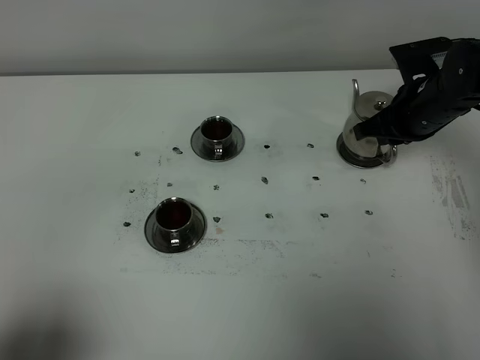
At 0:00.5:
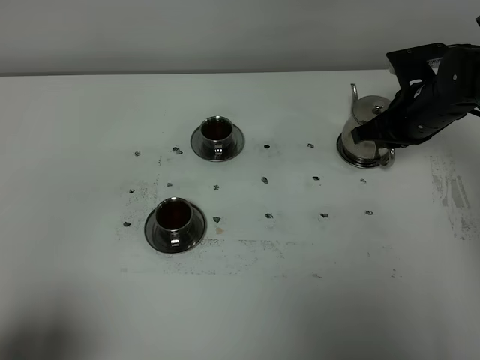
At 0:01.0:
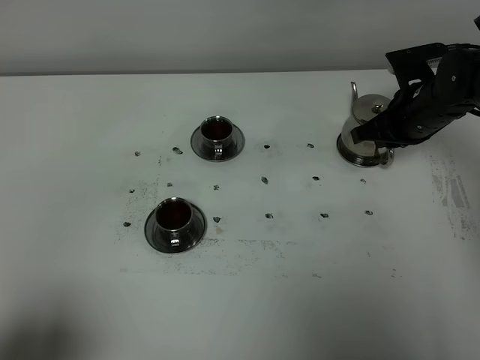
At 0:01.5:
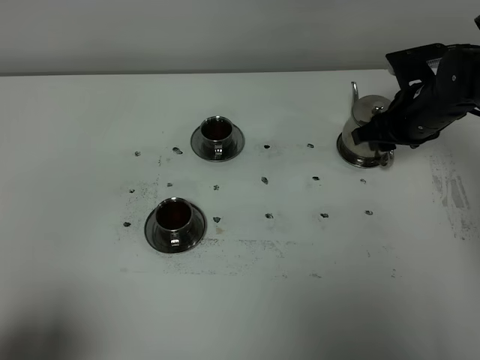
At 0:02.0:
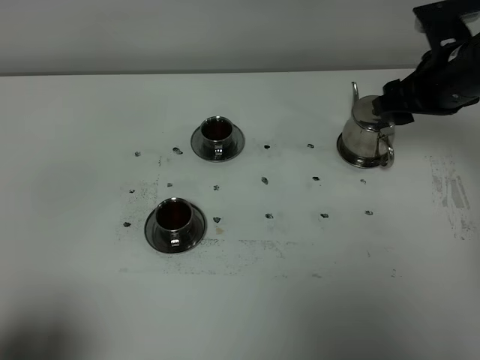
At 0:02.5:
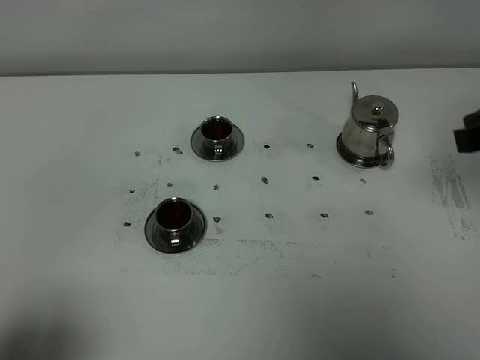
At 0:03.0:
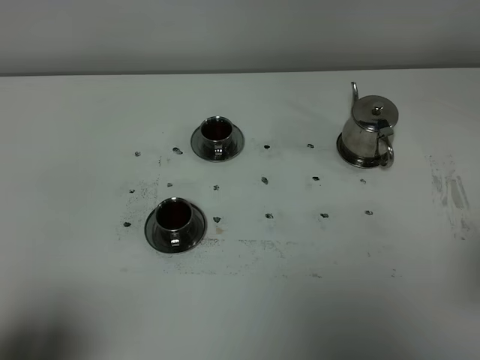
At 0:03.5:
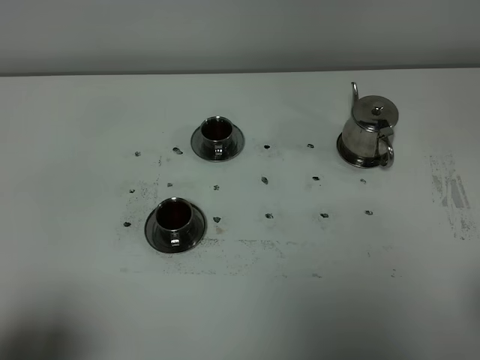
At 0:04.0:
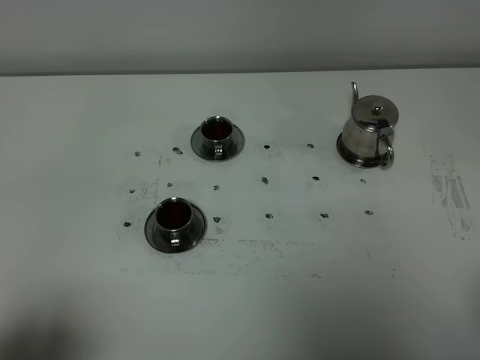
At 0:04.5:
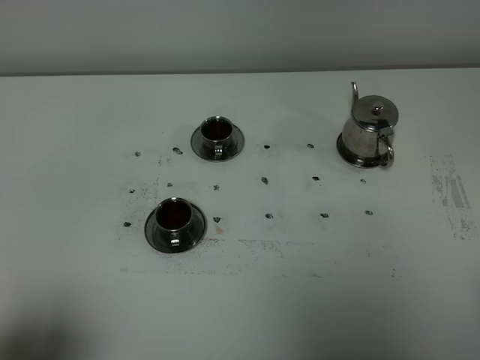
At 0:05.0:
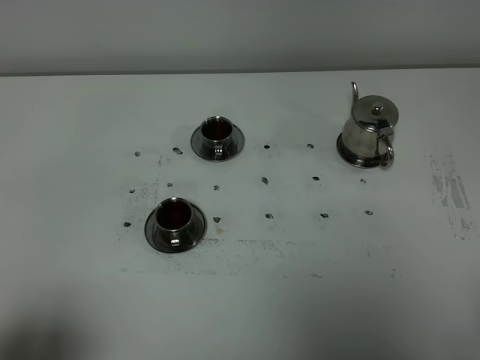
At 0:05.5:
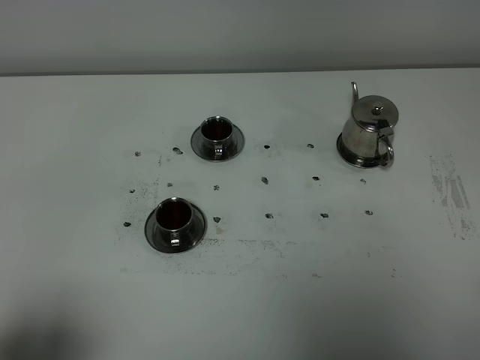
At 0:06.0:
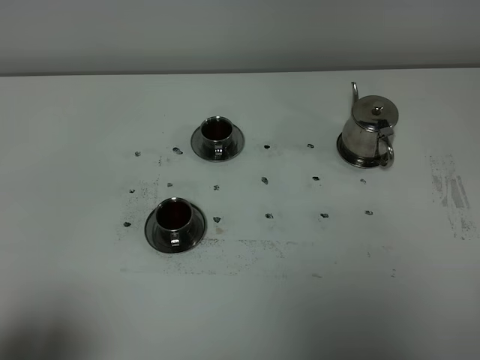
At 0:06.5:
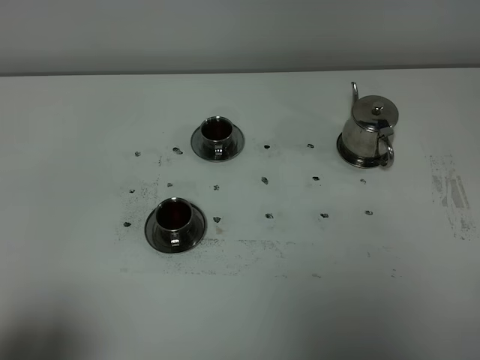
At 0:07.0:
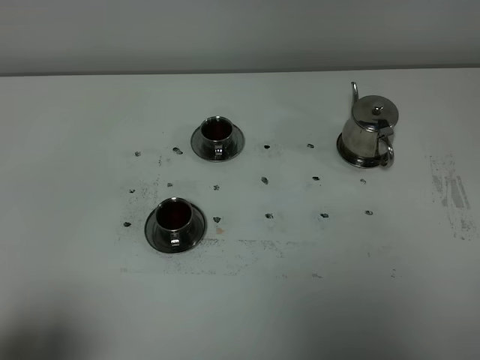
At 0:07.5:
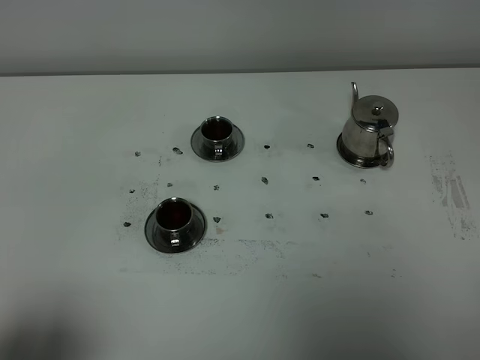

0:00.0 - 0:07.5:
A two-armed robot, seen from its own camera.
Task of the whole recording: grasp the stainless steel teapot and pour the tea into the two stainless steel teacups one by one, put the stainless steel teapot back in its original place.
0:00.0 - 0:02.0: The right gripper travels upward by approximately 10 cm, and opens.
0:02.0 - 0:04.0: The right gripper shifts some 35 cm backward, and closes its fingers.
0:05.5 - 0:07.5: Both grippers stay put.

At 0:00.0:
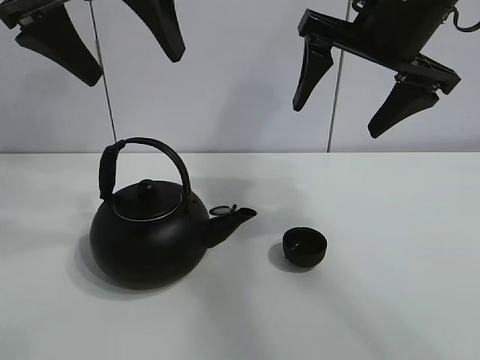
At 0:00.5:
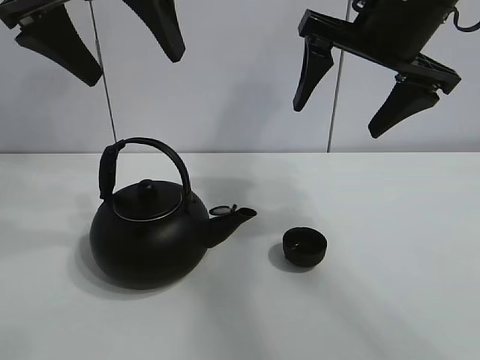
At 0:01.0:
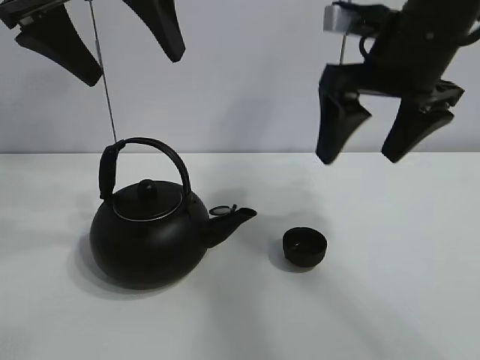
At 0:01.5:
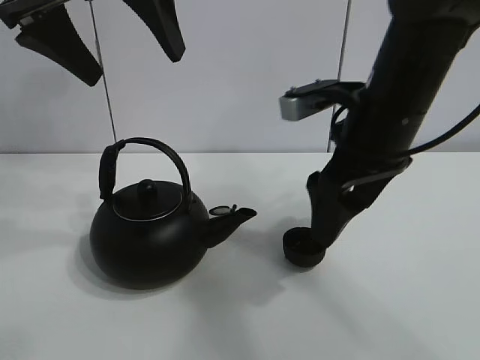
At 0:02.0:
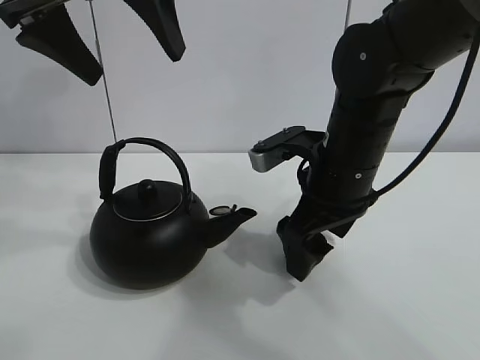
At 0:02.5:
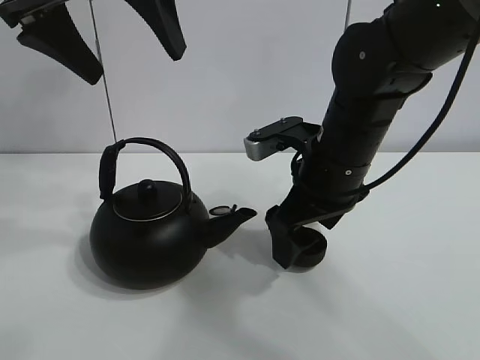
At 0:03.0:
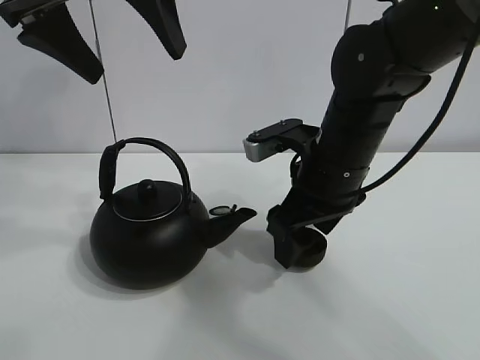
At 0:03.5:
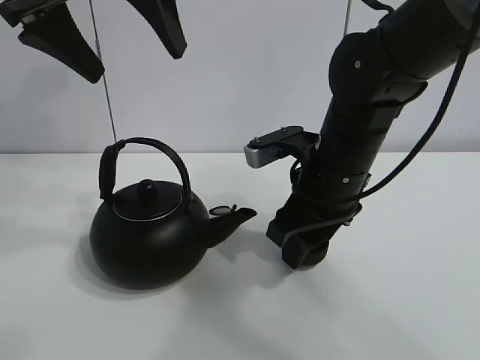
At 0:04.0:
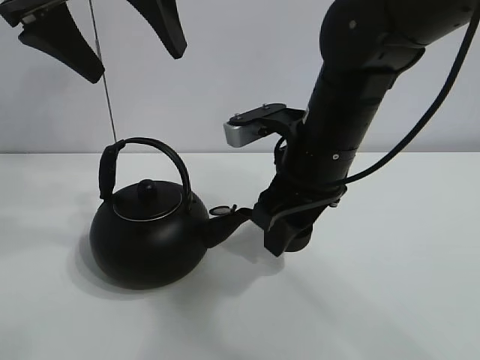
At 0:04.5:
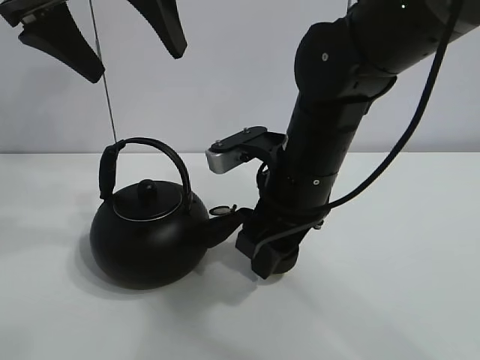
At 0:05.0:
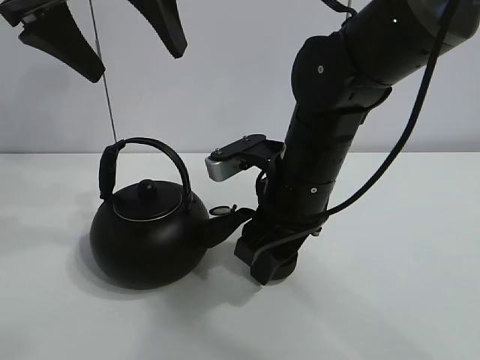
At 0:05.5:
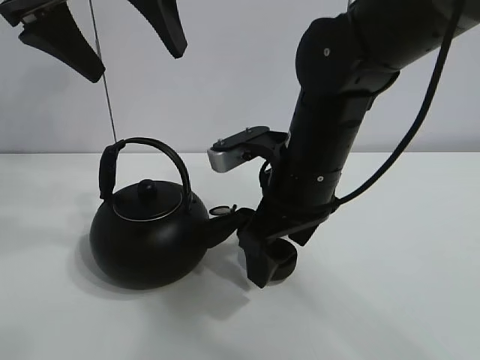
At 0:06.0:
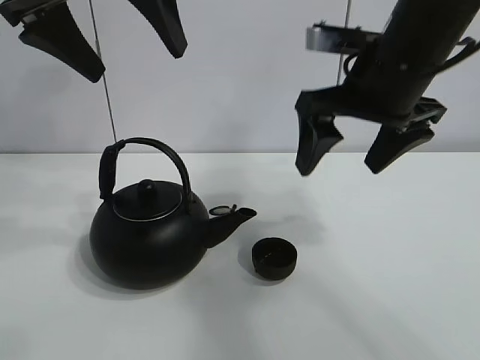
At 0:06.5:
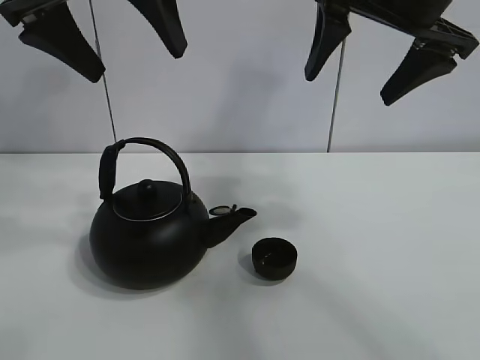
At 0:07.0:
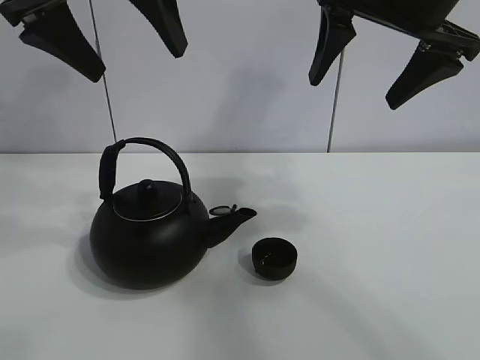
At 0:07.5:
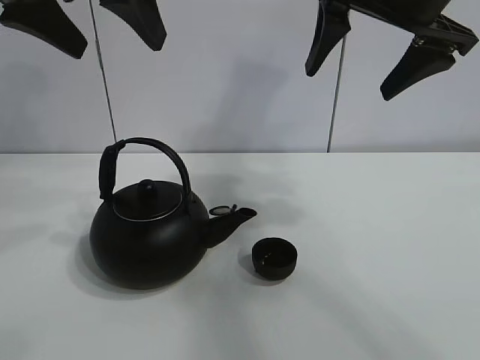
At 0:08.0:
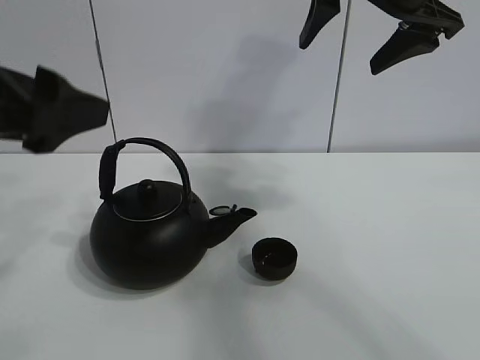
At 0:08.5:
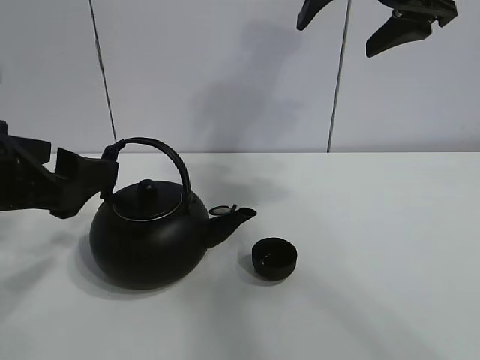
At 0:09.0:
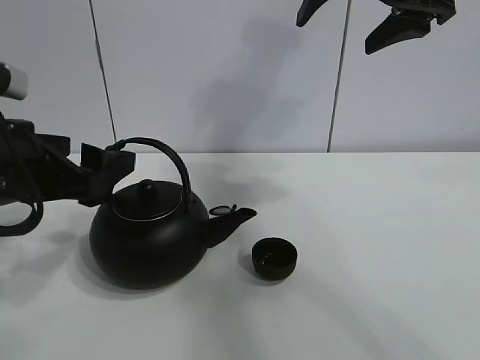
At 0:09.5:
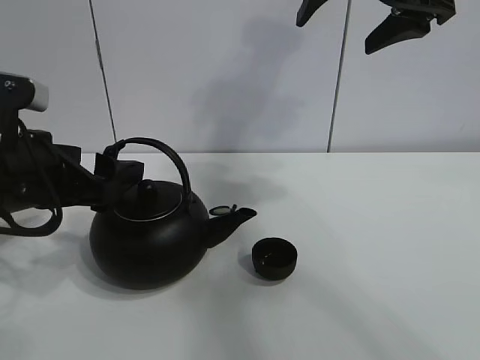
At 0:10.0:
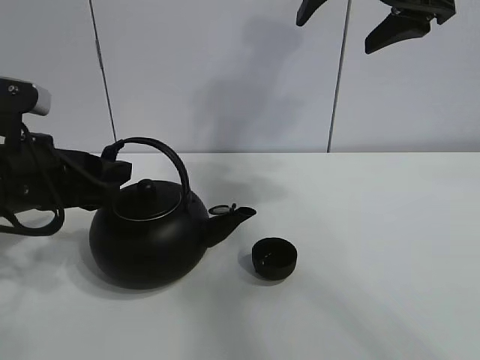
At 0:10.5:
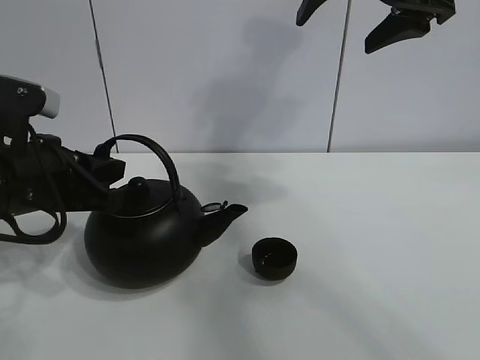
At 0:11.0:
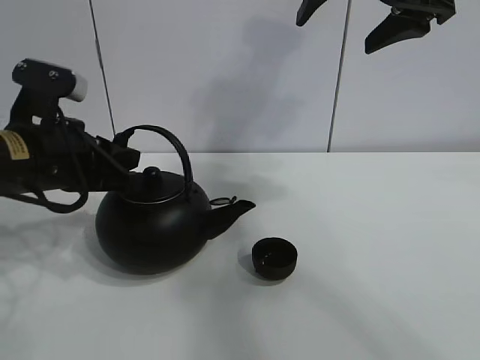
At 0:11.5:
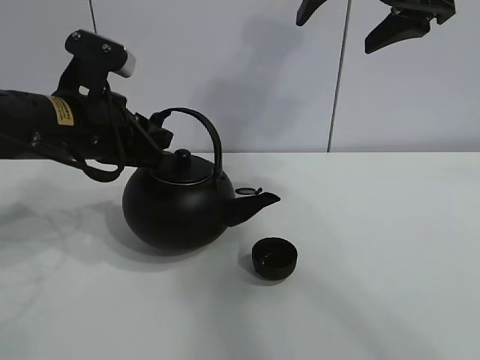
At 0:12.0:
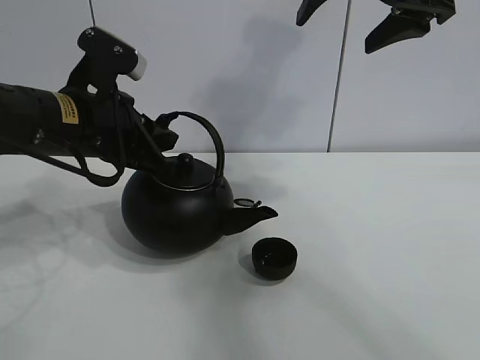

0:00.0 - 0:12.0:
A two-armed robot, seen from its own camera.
Task of the whole recording: pour tea into the teacup.
Step, 0:00.0 - 0:03.0: Pick up the teacup with the right gripper.
Step, 0:03.5 - 0:05.0: Place the teacup in the center of view with the right gripper.
Step, 0:05.5 - 0:10.0: Pick up the teapot with the left gripper.
0:02.0 - 0:04.0: The right gripper closes.
0:04.0 - 0:06.0: The right gripper heads upward and to the right, covering roughly 10 cm, and opens up.
0:06.0 - 0:08.0: The left gripper travels backward, downward and to the left by some 15 cm, while the right gripper shifts roughly 10 cm upward.
0:08.0 - 0:10.0: The left gripper is displaced downward and forward by about 15 cm.
0:10.0 - 0:12.0: The left gripper travels to the right and forward by approximately 10 cm, and closes its fingers.

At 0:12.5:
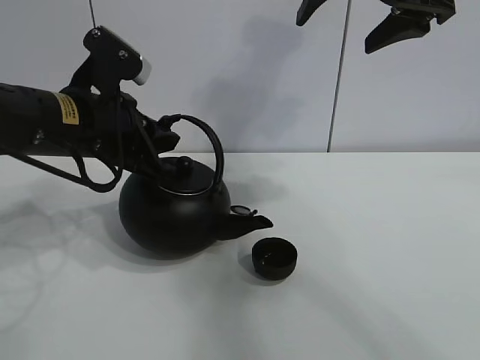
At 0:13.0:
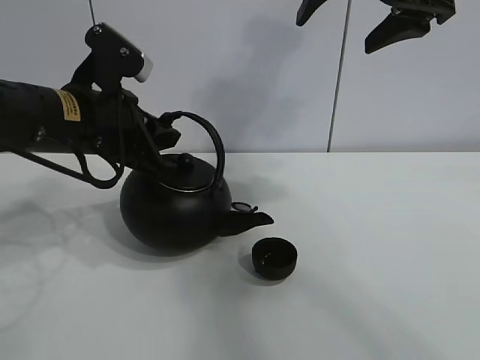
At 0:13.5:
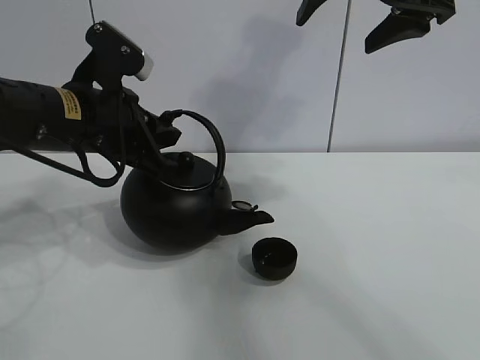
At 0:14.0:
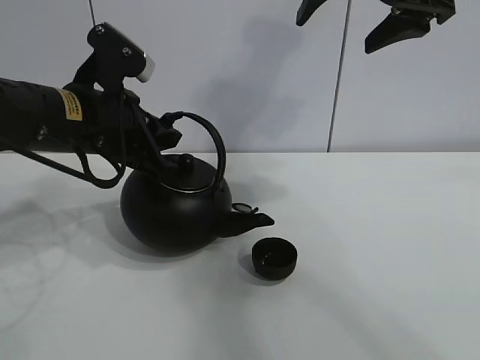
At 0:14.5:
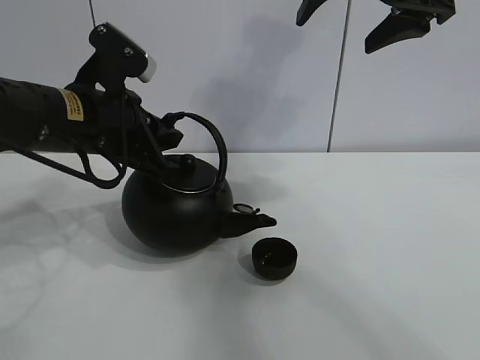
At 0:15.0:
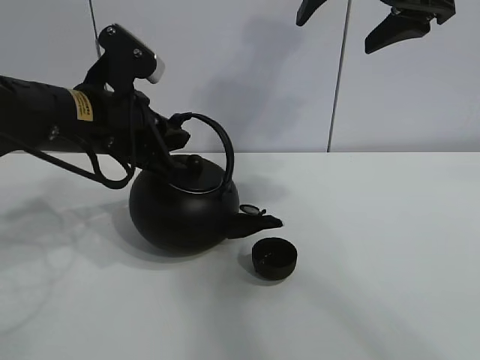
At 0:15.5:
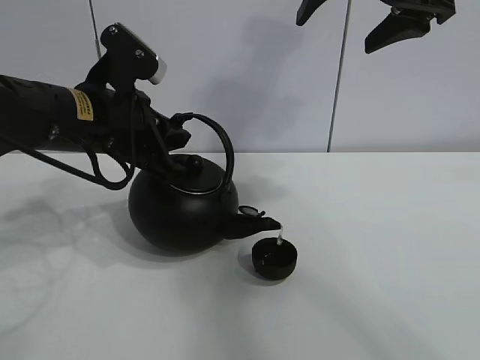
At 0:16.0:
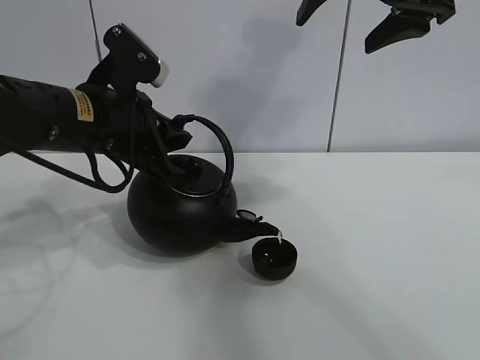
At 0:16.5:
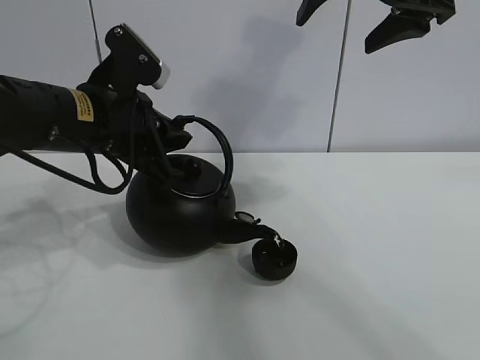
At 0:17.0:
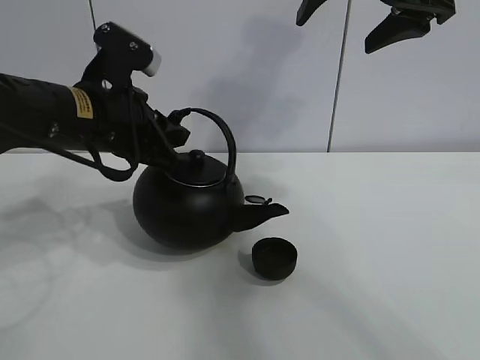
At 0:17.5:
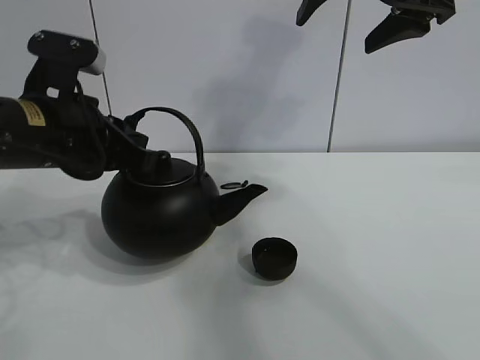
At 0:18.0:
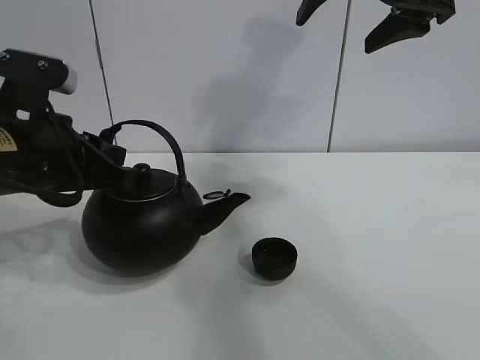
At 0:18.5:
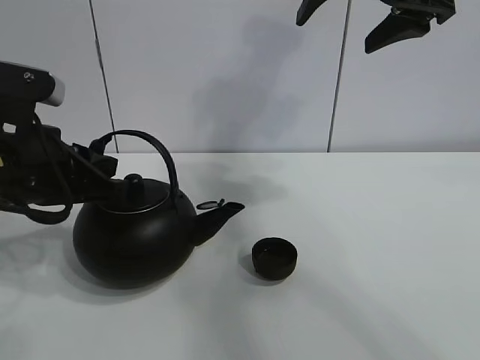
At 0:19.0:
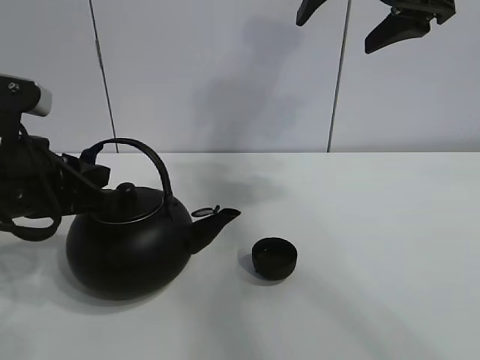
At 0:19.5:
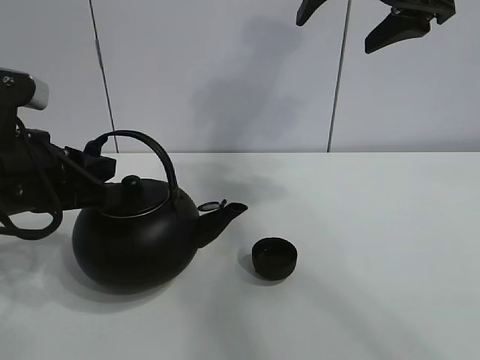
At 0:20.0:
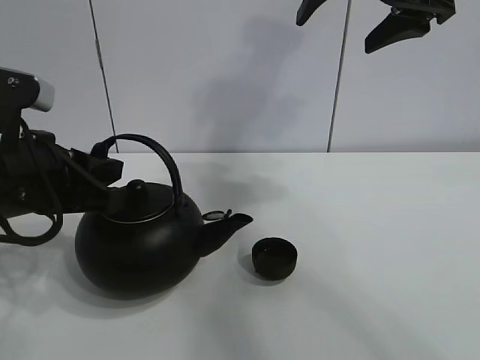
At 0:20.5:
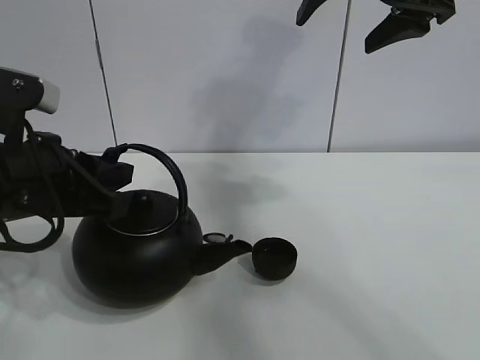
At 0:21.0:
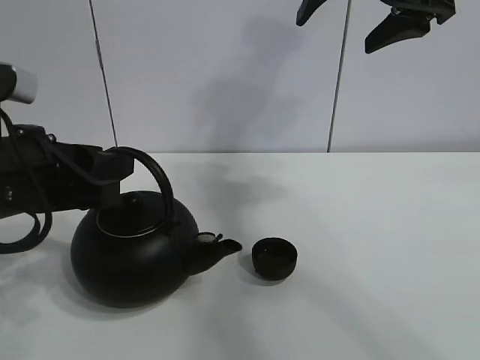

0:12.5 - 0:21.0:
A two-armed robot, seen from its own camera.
Task of the whole recording: pour tea into the teacup.
Step, 0:12.5 - 0:16.5: Pour tea into the teacup with the left gripper.
0:12.5 - 0:14.5: Neither gripper changes place.
0:14.5 - 0:16.5: The grippers stay close to where they were, moving slightly.
0:16.5 - 0:19.0: The left gripper travels backward and to the left by roughly 10 cm.
0:19.0 - 0:21.0: The left gripper opens its fingers.
